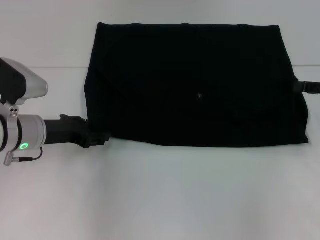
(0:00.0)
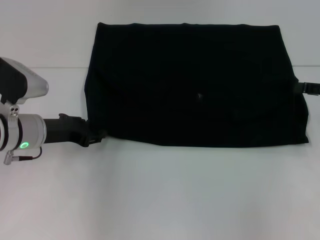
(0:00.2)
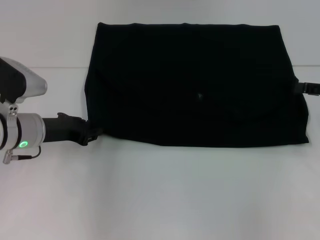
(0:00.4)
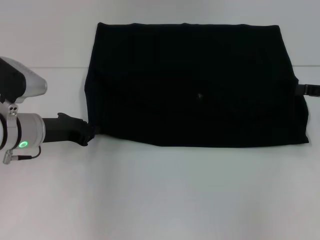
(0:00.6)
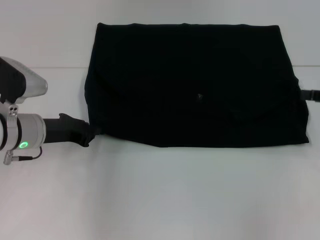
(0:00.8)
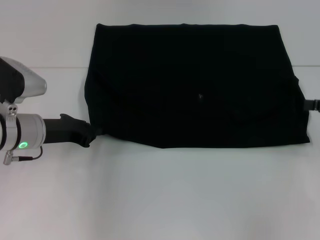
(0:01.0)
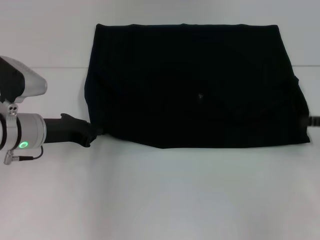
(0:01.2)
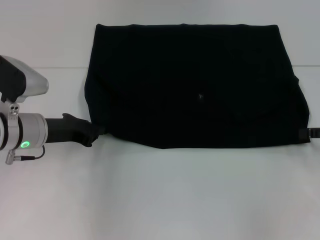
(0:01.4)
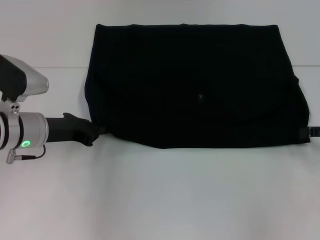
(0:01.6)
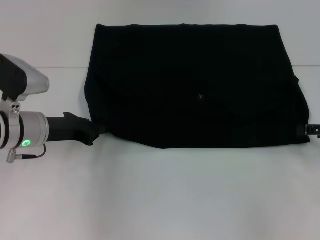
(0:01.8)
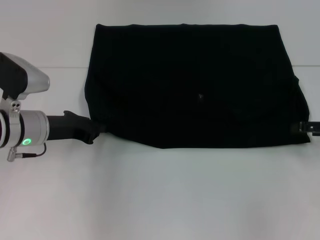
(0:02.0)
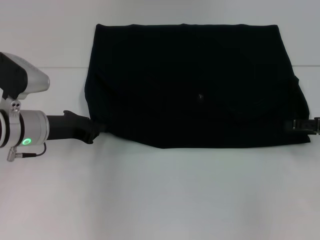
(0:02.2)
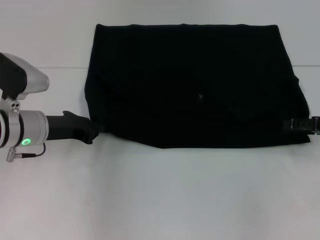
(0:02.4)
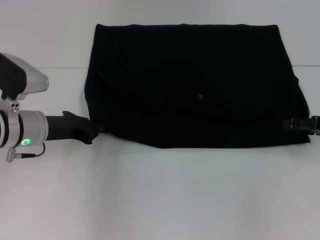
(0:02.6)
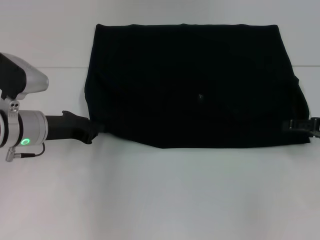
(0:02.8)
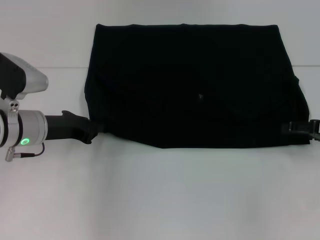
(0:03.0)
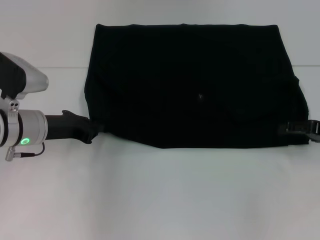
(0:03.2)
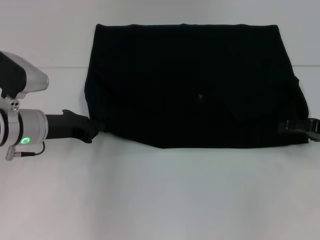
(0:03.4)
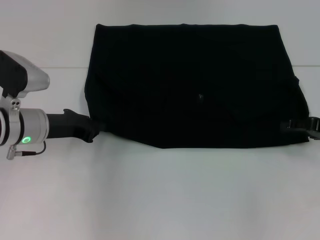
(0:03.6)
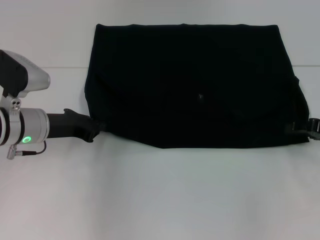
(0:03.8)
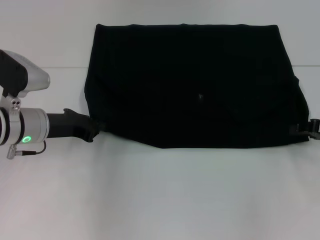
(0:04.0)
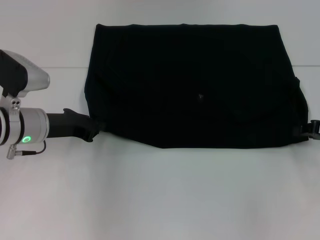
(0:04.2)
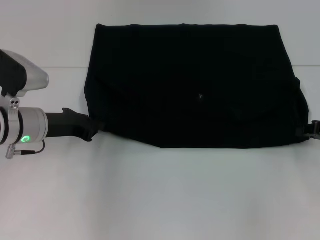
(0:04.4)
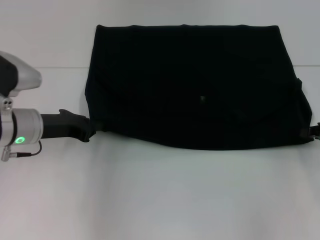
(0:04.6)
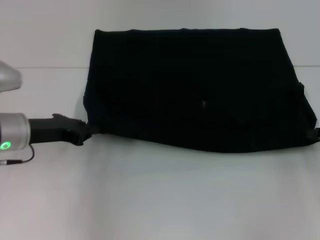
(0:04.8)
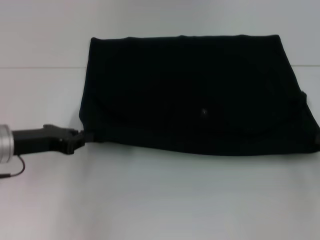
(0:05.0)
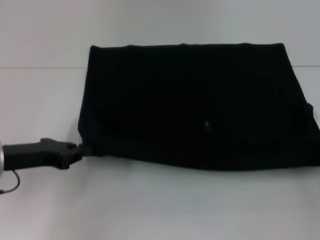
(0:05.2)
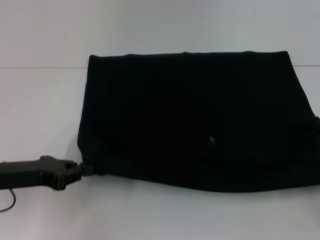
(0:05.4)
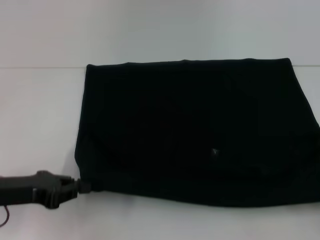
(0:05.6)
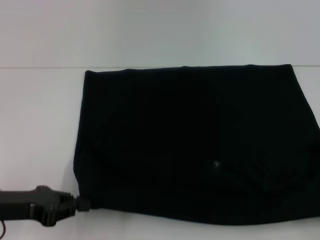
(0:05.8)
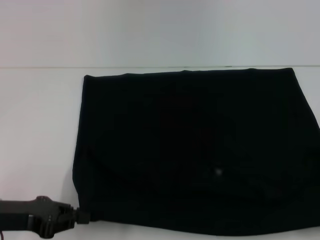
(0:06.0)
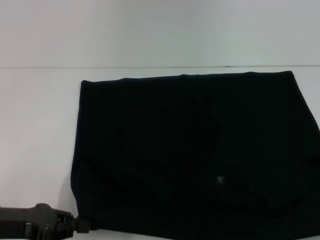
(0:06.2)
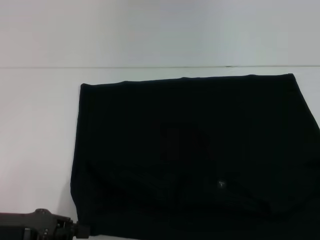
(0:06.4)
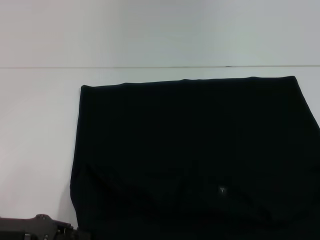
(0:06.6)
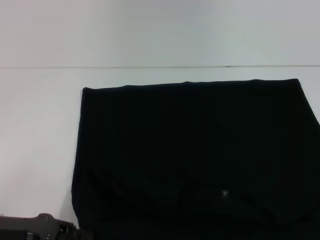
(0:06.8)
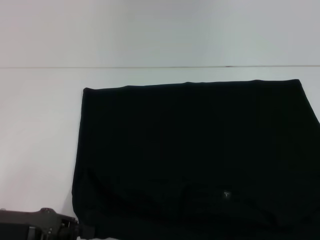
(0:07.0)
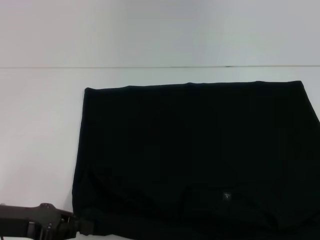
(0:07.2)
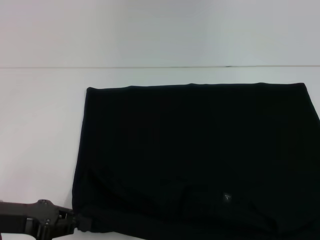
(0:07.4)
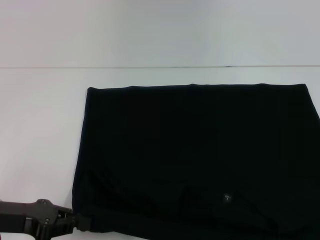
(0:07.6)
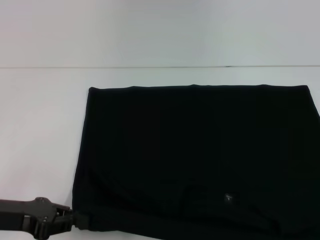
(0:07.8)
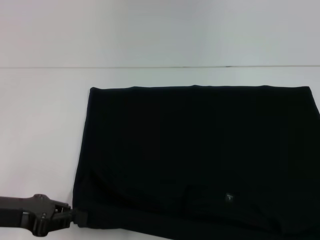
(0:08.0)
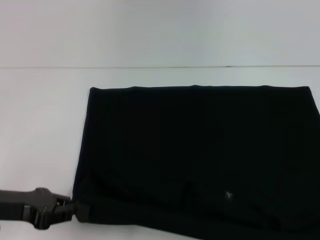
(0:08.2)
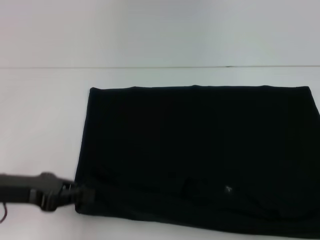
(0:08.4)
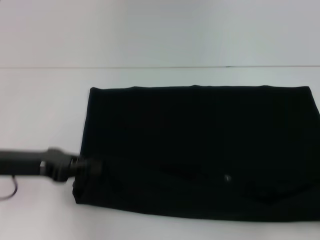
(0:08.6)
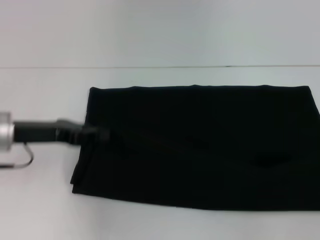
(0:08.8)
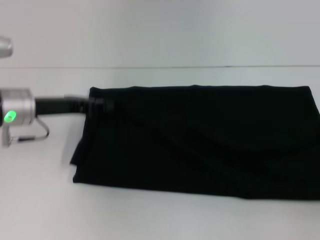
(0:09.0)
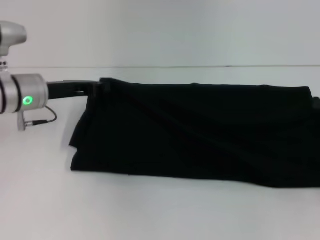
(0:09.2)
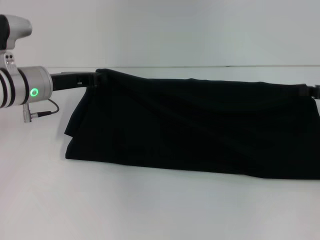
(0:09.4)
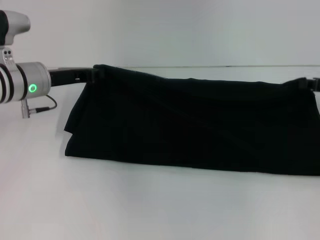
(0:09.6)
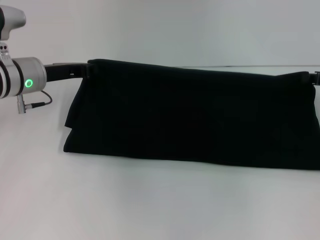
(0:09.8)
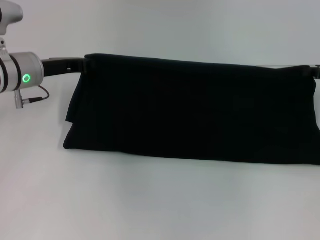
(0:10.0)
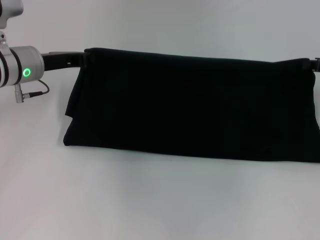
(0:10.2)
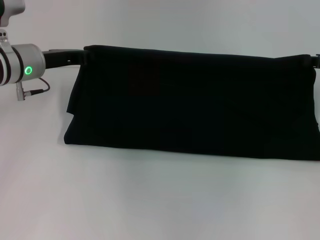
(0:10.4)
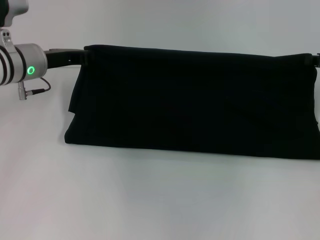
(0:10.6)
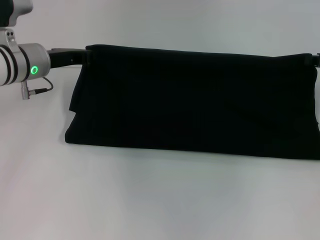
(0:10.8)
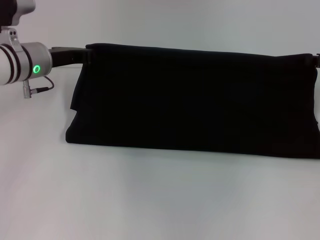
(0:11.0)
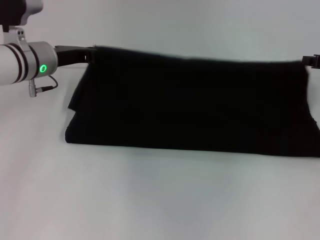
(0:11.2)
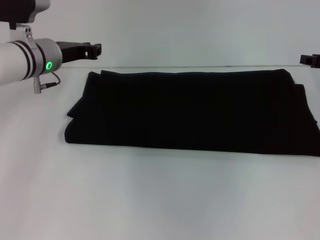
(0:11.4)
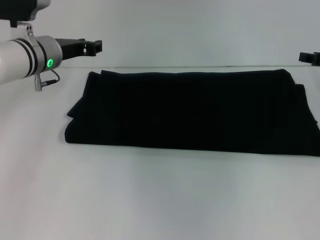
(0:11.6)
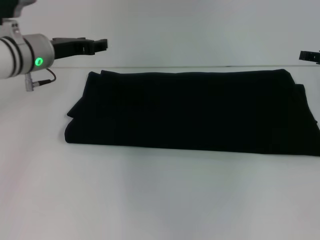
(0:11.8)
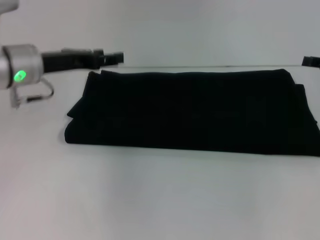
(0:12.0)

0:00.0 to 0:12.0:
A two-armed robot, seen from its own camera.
Step, 0:00.0 to 0:06.8: Pull the clothes with your left hand.
Step, 0:00.0 to 0:06.8: Pull the clothes with your right hand.
Step, 0:07.0 to 0:11.4: Fold the clothes with your right hand.
0:00.0 to 0:01.6: The left gripper closes its fingers.
0:01.6 to 0:03.0: The grippers make only small movements.
0:04.4 to 0:06.0: The right gripper is displaced backward by approximately 20 cm, while the left gripper travels backward and to the left by approximately 15 cm.
0:06.0 to 0:07.6: The right gripper travels backward by roughly 10 cm.
0:07.6 to 0:09.0: The right gripper moves forward, roughly 20 cm; the left gripper moves forward, about 15 cm.
0:09.0 to 0:10.4: The left gripper shifts roughly 5 cm forward, while the right gripper moves forward and to the left, about 15 cm.
0:10.4 to 0:12.0: The right gripper opens, while the left gripper opens.

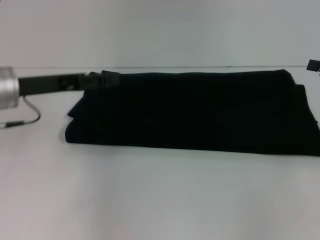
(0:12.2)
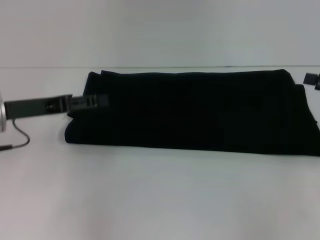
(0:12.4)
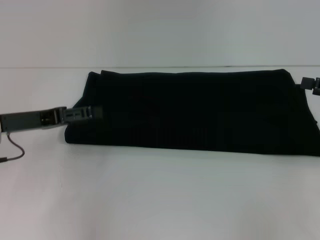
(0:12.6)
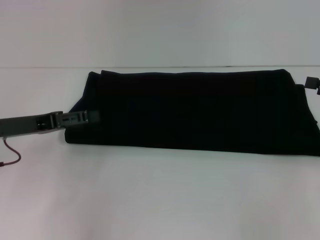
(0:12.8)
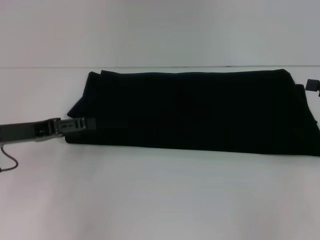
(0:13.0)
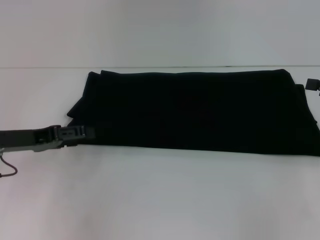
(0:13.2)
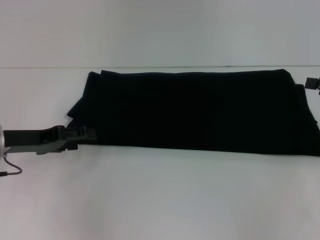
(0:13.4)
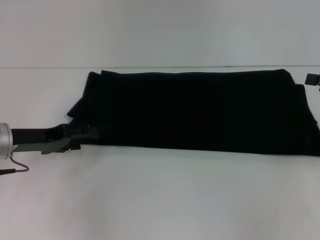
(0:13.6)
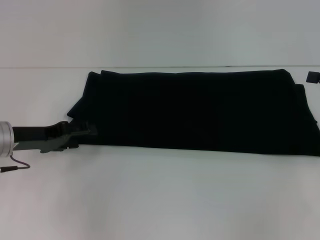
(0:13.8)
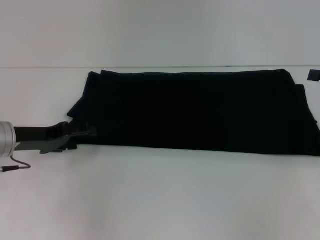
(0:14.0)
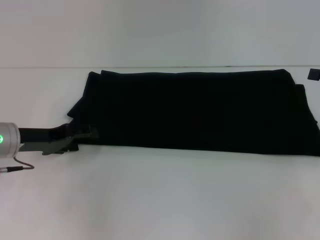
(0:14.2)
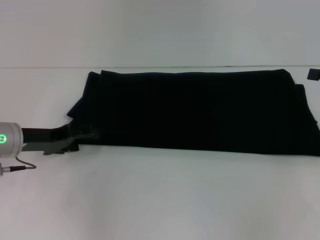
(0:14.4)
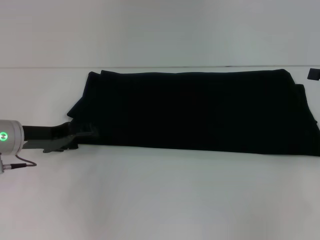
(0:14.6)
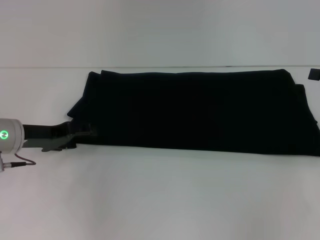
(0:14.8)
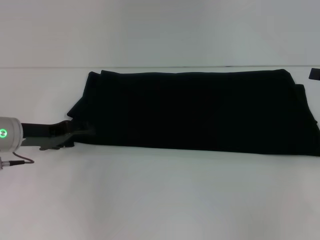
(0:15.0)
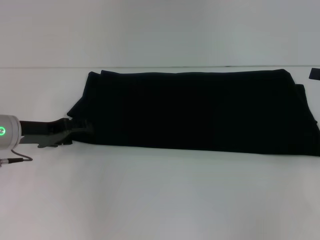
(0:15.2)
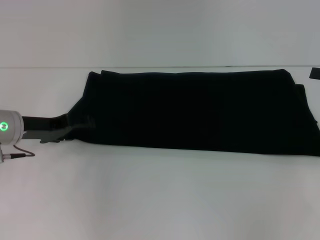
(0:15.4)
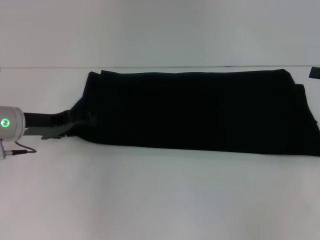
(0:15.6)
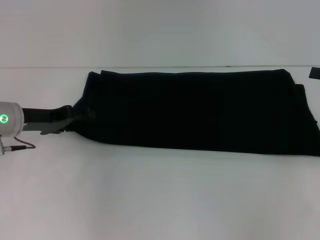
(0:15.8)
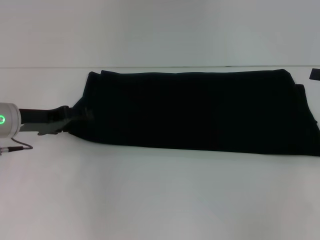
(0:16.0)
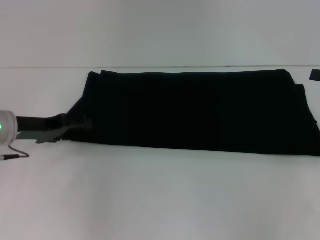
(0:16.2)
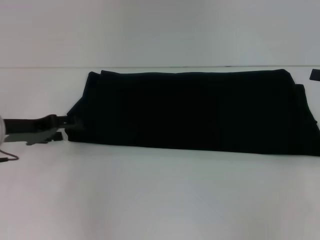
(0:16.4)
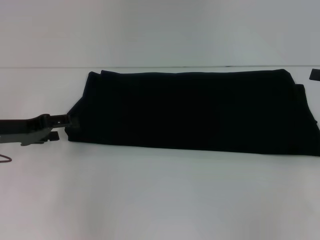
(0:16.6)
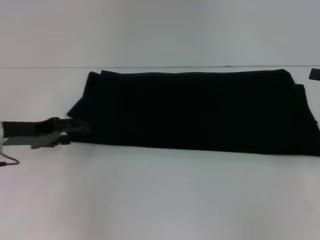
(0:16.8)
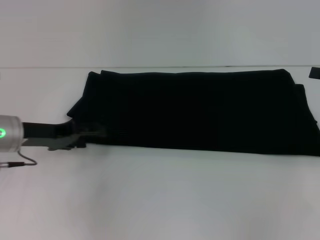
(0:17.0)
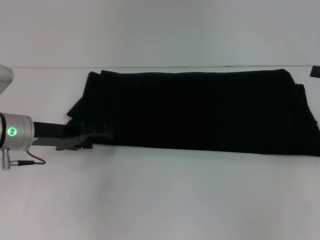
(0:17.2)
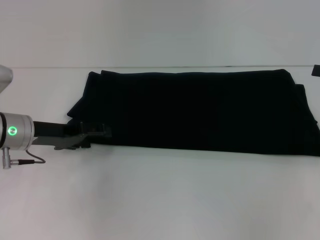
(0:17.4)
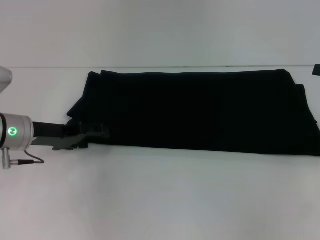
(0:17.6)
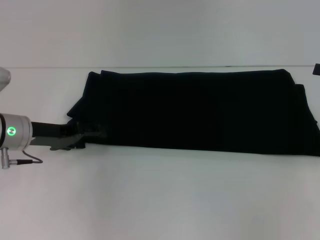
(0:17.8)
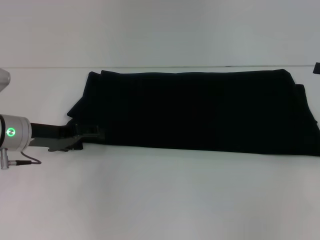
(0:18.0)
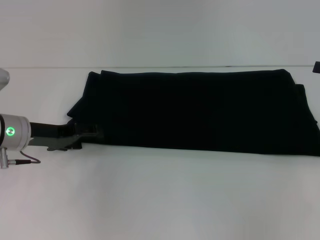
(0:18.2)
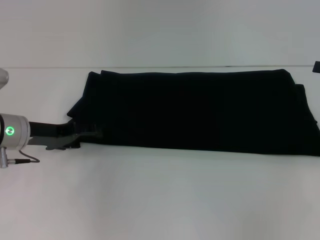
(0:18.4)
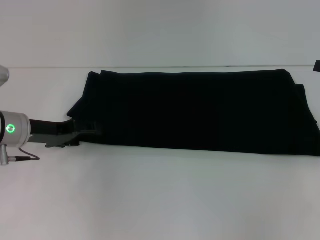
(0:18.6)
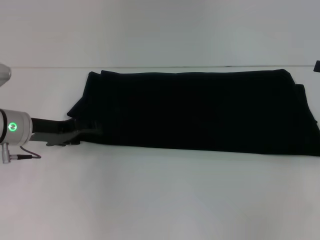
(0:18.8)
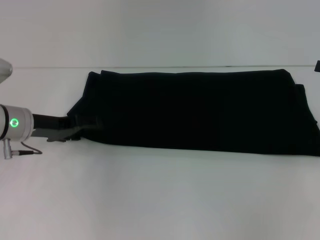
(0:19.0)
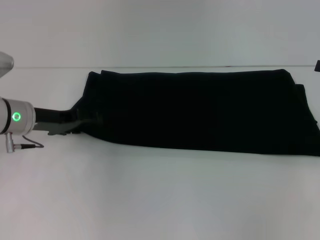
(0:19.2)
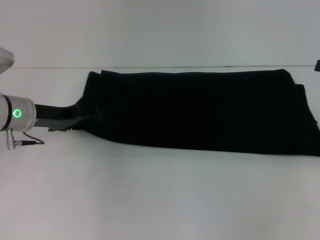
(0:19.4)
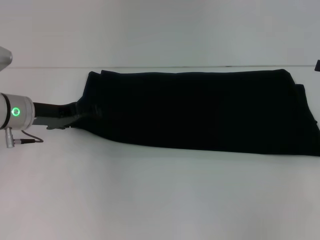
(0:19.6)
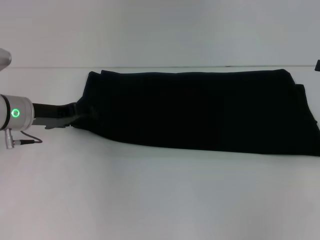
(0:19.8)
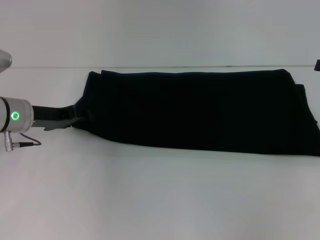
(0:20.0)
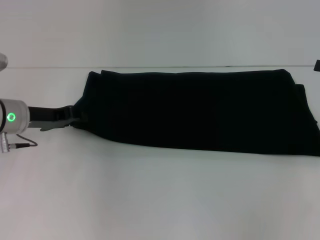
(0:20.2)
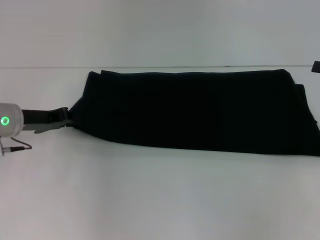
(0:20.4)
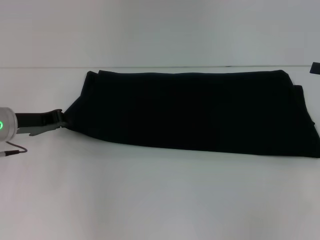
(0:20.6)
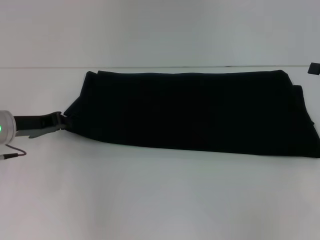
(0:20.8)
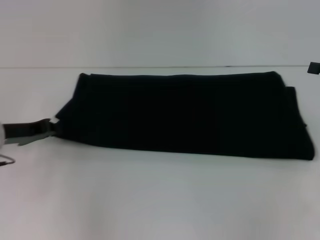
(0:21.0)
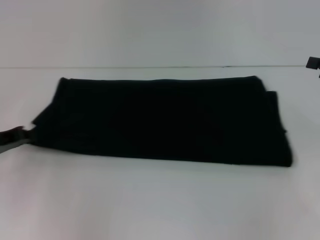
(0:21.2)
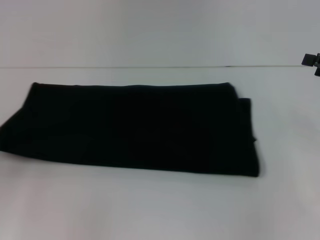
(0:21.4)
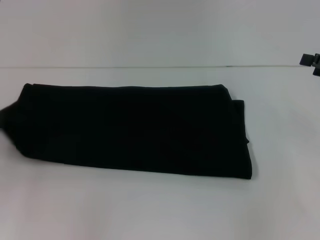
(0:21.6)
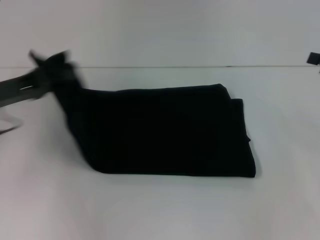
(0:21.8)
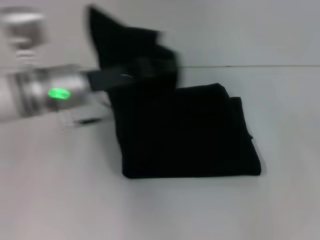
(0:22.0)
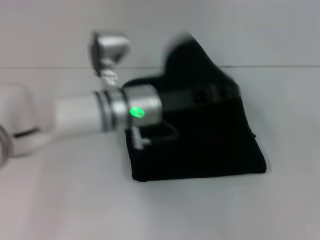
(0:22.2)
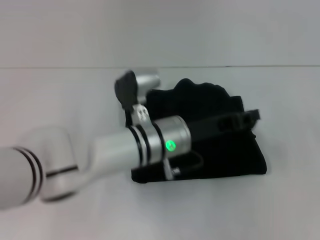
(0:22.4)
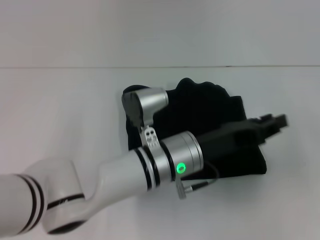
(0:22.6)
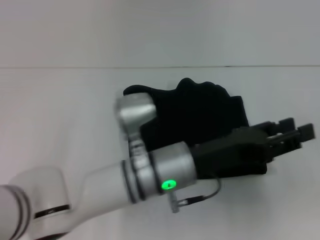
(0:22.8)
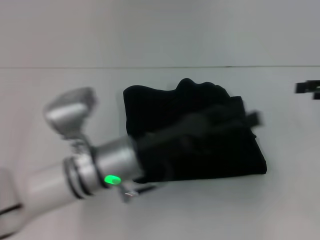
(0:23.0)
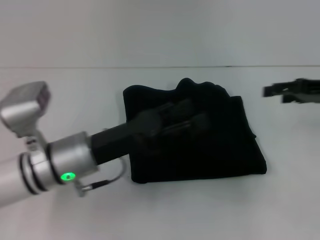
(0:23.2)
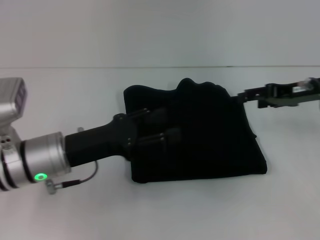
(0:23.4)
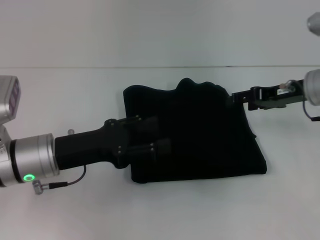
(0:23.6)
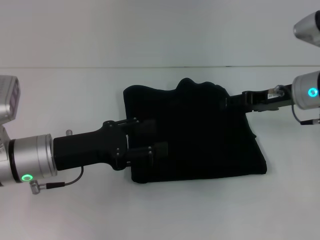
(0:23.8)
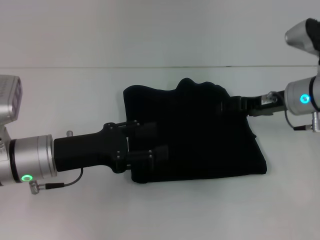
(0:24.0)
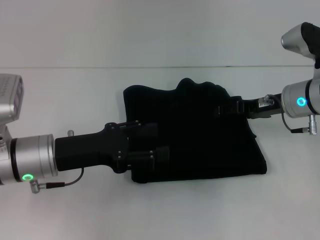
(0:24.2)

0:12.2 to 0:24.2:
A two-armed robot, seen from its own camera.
Step, 0:12.2 to 0:22.6: Fold the clothes with your left hand.
0:12.2 to 0:13.8: The left gripper goes approximately 5 cm downward.
0:13.8 to 0:16.6: The grippers stay close to where they were, moving slightly.
0:16.6 to 0:18.2: The left gripper ends up approximately 5 cm from where it was.
0:18.2 to 0:19.8: The grippers make only small movements.
0:19.8 to 0:21.2: The left gripper goes approximately 10 cm to the left and backward, and closes.
0:21.2 to 0:22.6: The left gripper is displaced to the right by roughly 35 cm, while the right gripper shifts by roughly 5 cm.
0:22.6 to 0:24.2: The two grippers go some 20 cm to the left. The left gripper opens.
